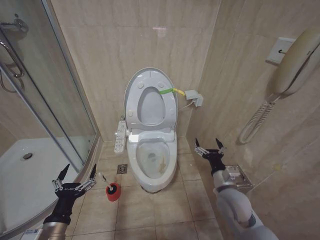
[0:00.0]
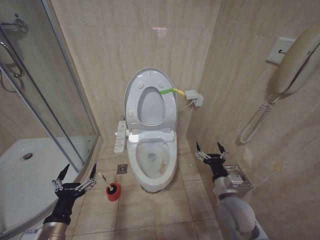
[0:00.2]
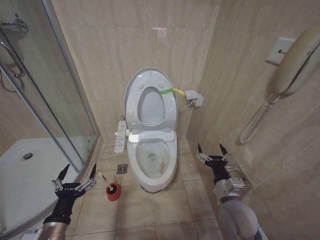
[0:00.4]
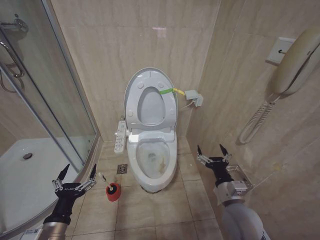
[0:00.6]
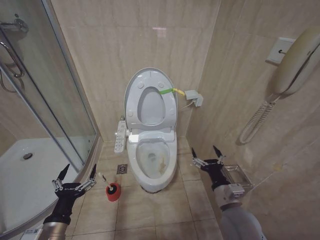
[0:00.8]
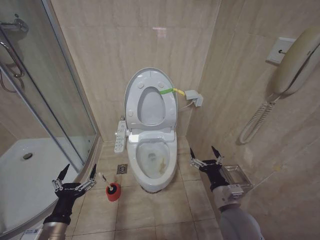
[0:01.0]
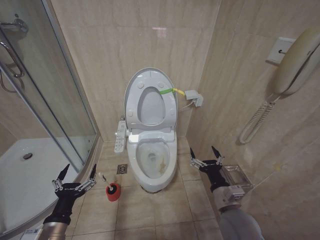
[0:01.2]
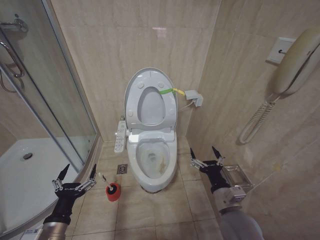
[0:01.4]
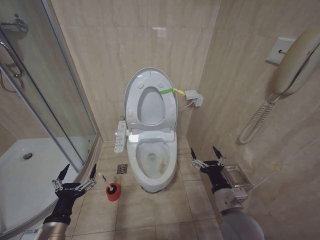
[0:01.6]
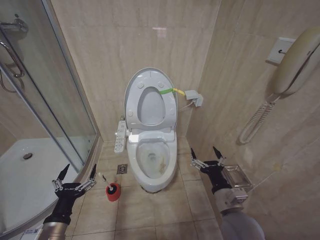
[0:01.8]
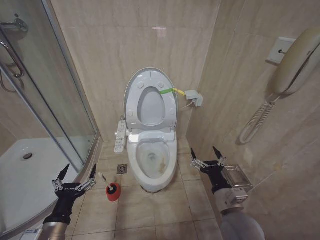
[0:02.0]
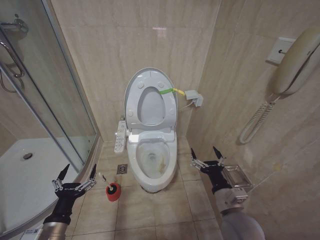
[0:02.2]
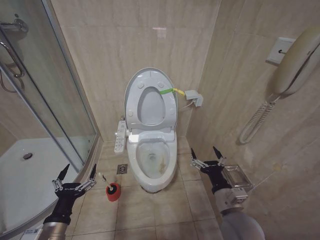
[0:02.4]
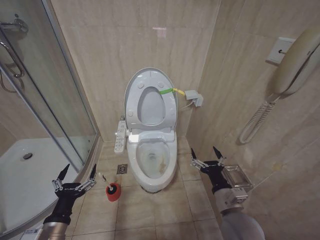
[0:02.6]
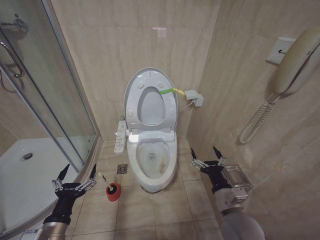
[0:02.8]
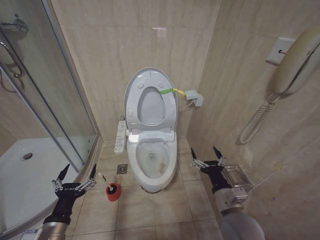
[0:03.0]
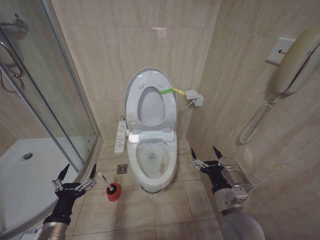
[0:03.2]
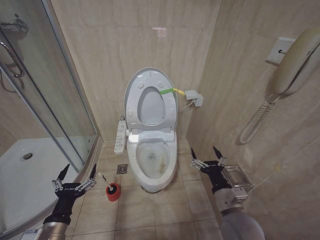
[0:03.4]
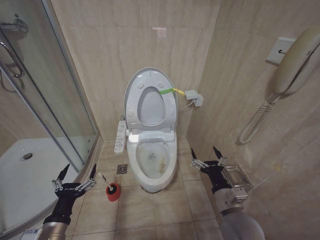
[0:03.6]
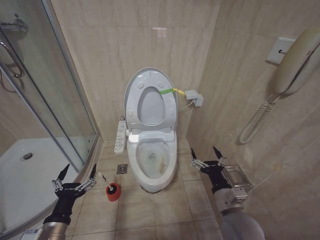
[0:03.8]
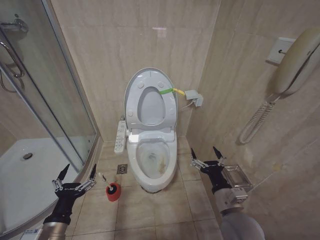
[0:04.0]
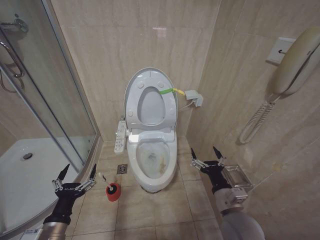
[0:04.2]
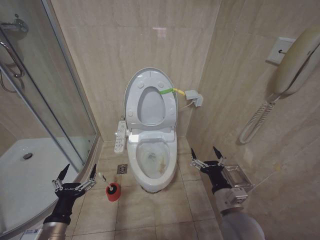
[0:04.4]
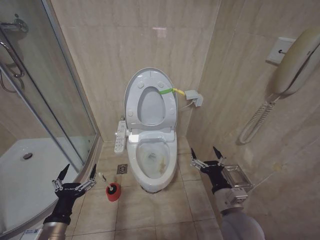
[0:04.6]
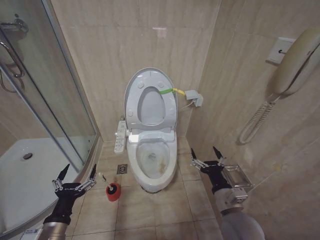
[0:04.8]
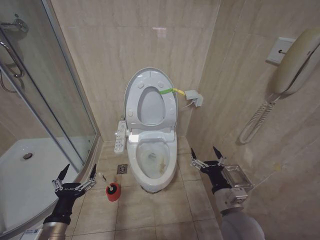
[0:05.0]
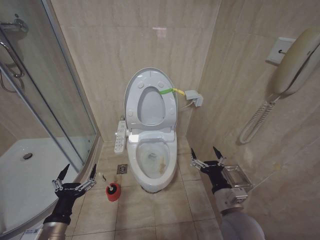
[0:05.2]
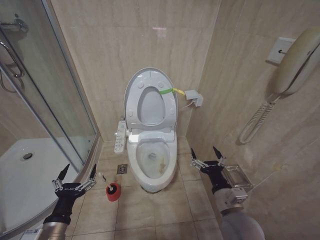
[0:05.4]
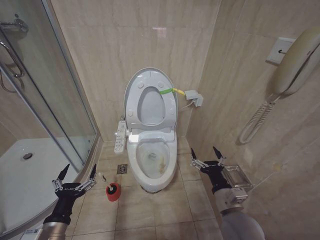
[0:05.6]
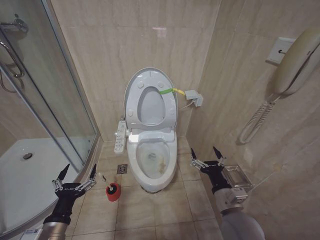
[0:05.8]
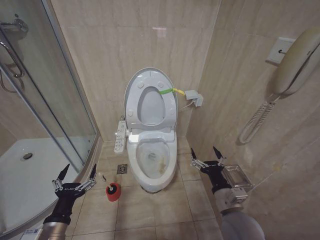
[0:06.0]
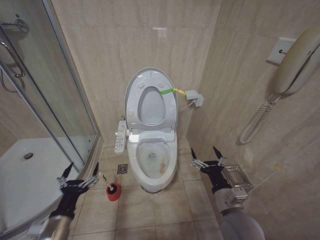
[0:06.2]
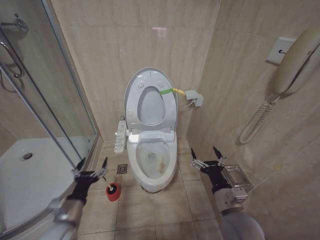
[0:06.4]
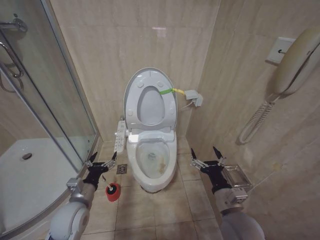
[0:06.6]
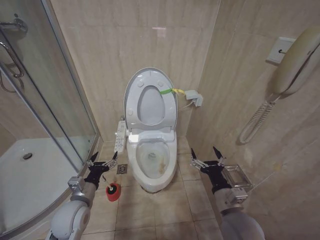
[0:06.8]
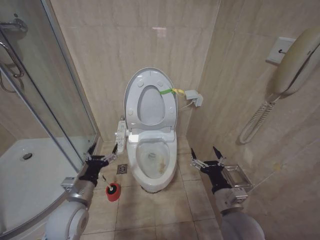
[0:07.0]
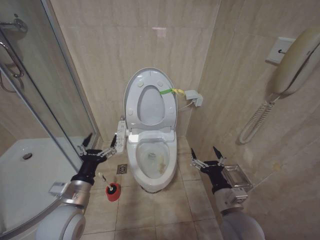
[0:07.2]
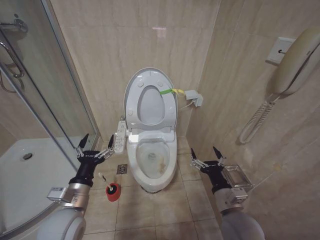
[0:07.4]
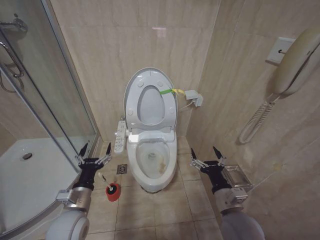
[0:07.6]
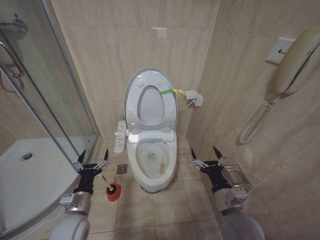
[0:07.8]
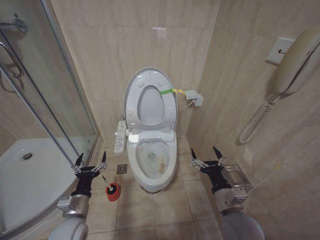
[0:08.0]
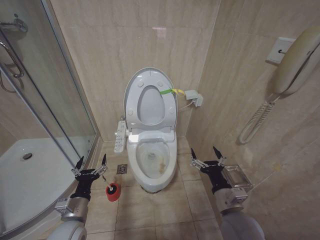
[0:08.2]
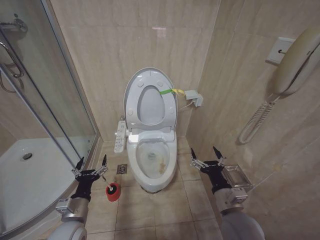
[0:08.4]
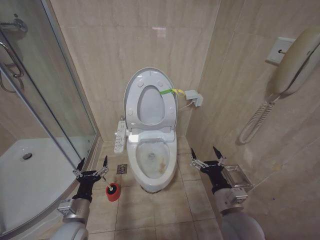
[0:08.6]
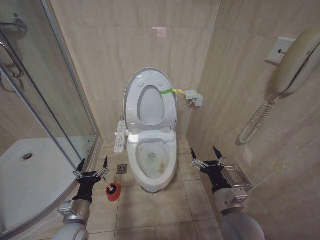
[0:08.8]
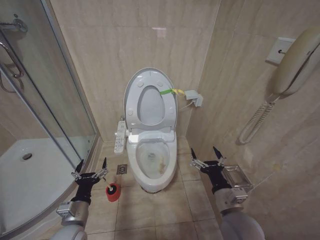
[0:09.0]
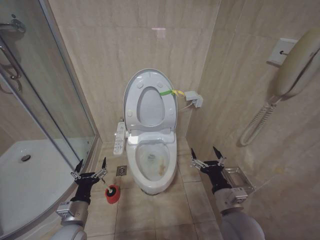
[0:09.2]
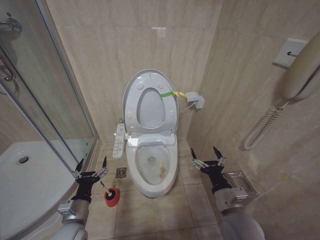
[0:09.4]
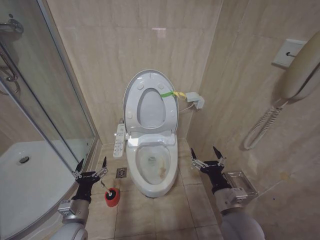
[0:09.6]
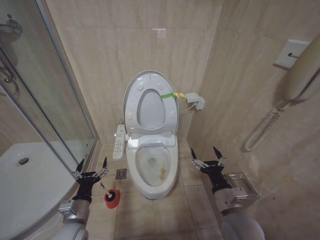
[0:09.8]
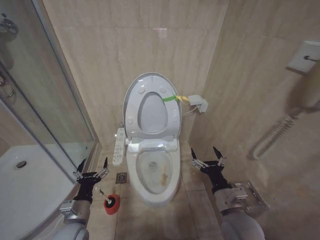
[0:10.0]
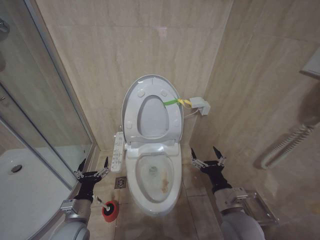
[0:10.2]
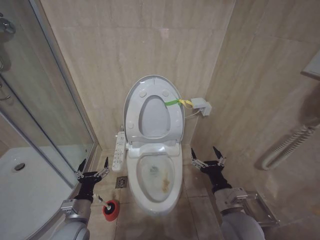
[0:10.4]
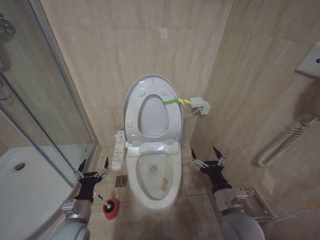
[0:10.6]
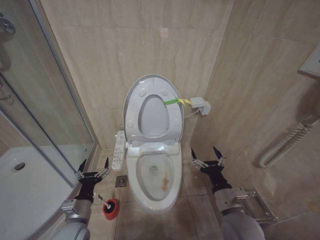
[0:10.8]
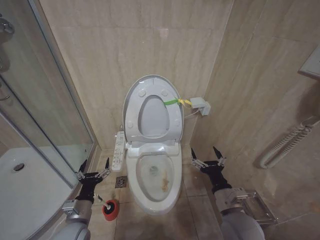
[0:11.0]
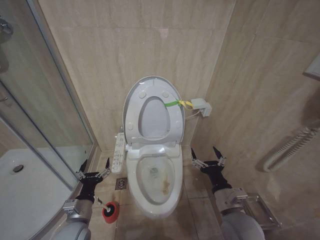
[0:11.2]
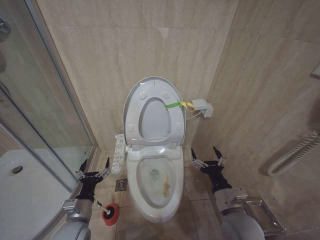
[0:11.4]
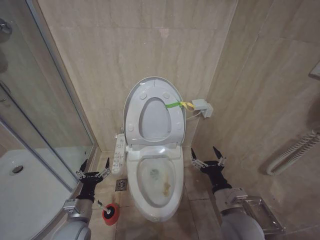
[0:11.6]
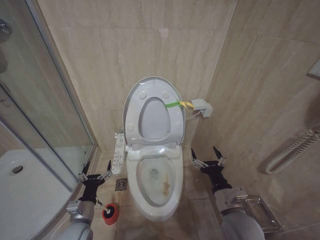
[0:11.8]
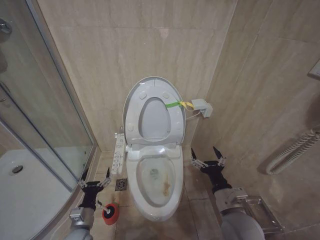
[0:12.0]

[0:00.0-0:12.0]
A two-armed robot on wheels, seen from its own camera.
Task of the whole recording: Open the toilet lid, clean the toilet bowl with a toilet brush, close the toilet lid, and flush.
0:00.0 to 0:01.6: The right gripper heads backward, covering roughly 10 cm.
0:01.6 to 0:06.0: Both grippers stay about where they are.
0:06.0 to 0:07.6: The left gripper is displaced forward by roughly 10 cm.
0:07.6 to 0:09.0: The left gripper travels downward by about 5 cm.
0:09.0 to 0:10.4: Both grippers stay put.
0:10.4 to 0:12.0: The left gripper travels downward by approximately 5 cm.

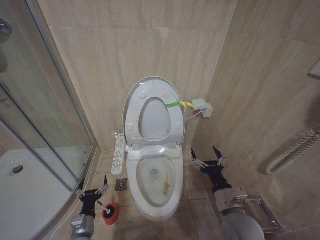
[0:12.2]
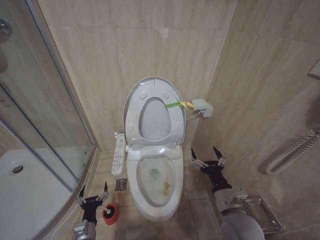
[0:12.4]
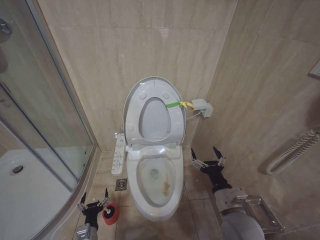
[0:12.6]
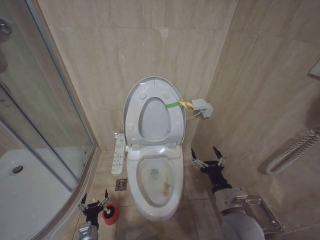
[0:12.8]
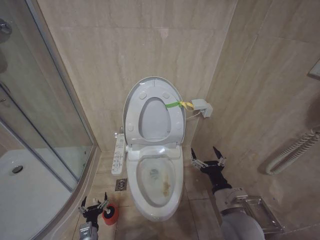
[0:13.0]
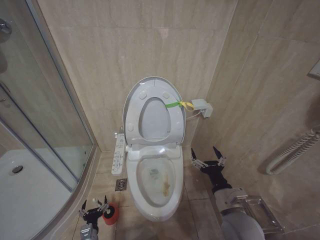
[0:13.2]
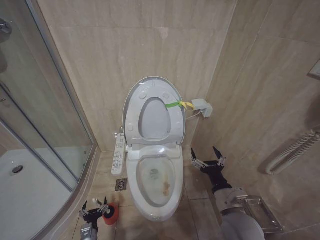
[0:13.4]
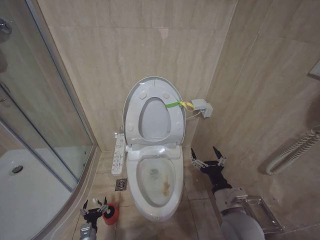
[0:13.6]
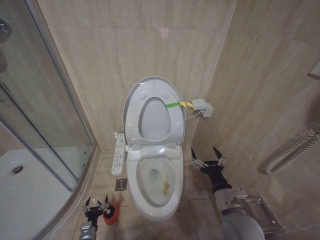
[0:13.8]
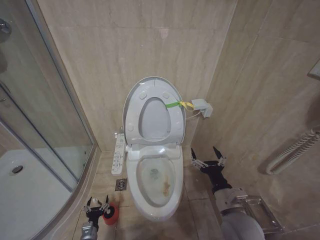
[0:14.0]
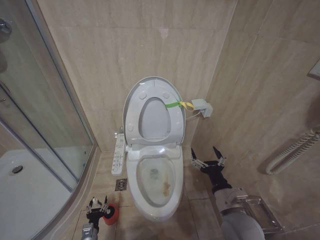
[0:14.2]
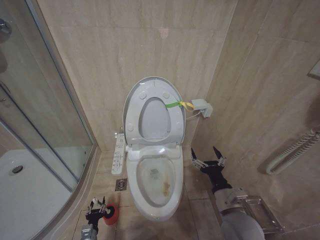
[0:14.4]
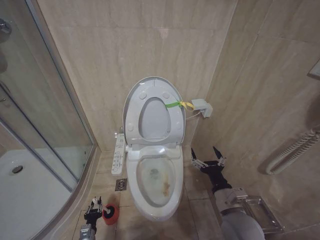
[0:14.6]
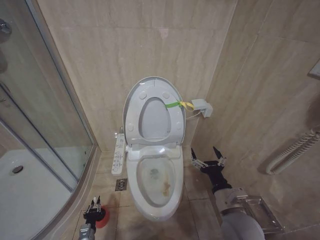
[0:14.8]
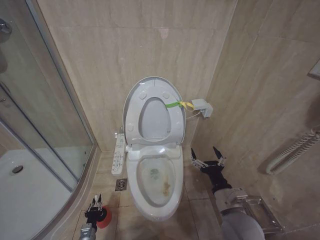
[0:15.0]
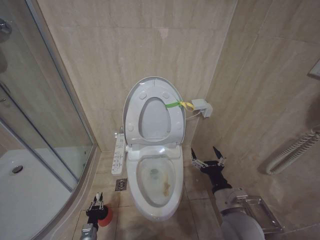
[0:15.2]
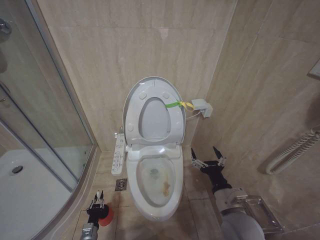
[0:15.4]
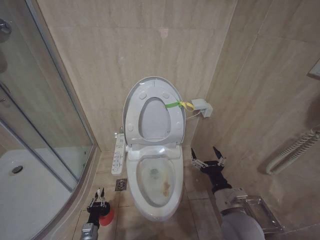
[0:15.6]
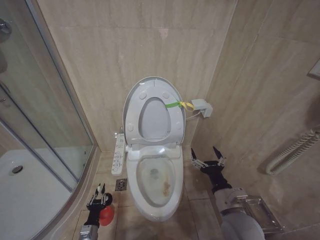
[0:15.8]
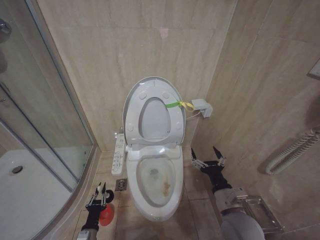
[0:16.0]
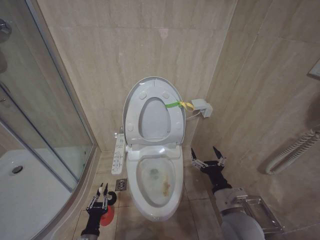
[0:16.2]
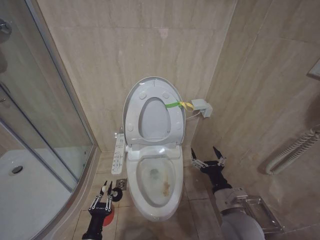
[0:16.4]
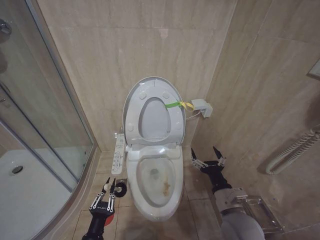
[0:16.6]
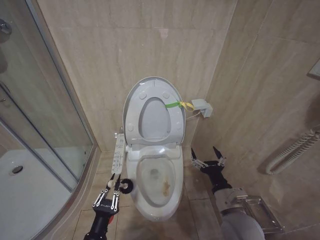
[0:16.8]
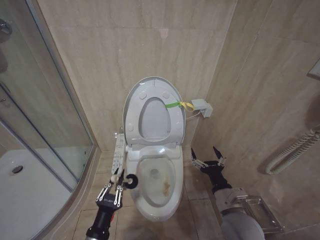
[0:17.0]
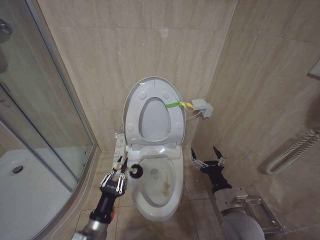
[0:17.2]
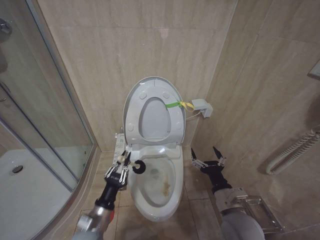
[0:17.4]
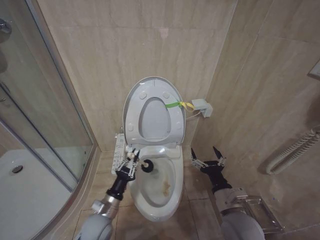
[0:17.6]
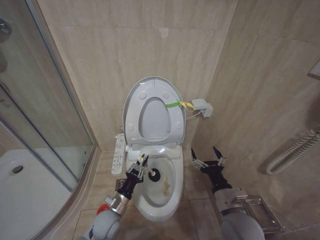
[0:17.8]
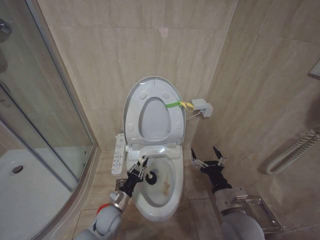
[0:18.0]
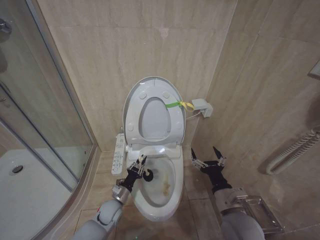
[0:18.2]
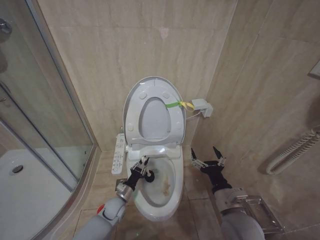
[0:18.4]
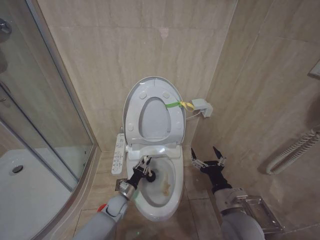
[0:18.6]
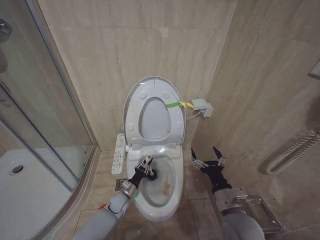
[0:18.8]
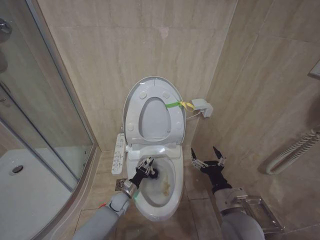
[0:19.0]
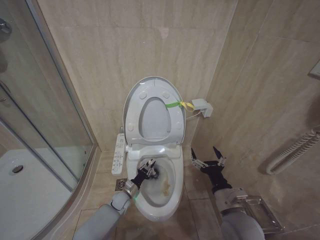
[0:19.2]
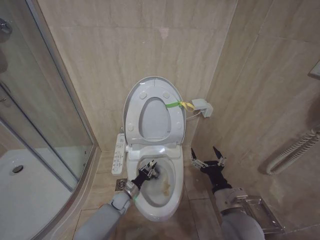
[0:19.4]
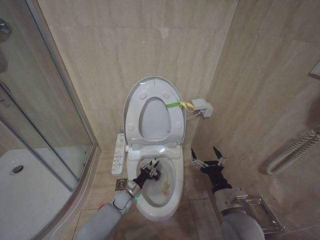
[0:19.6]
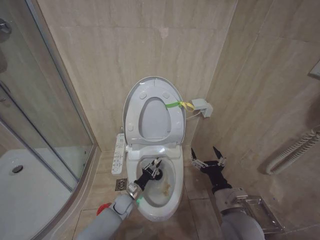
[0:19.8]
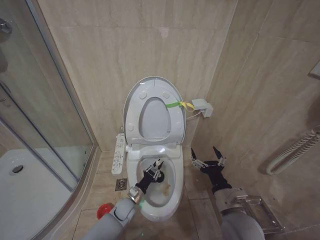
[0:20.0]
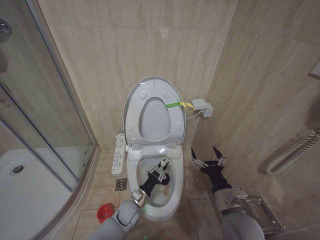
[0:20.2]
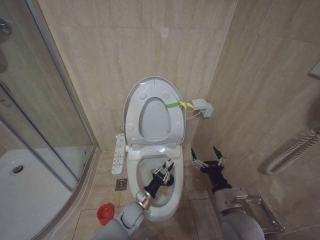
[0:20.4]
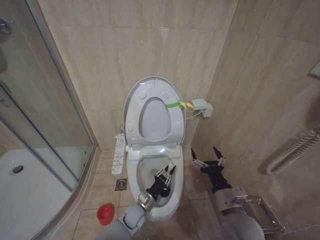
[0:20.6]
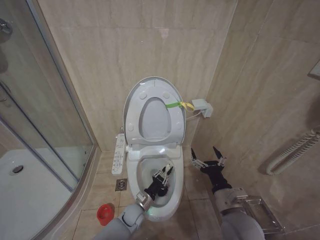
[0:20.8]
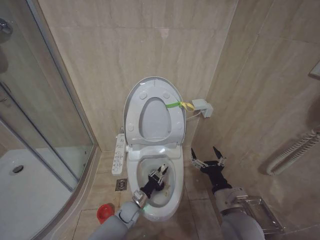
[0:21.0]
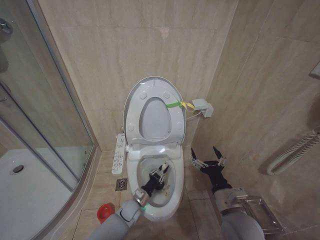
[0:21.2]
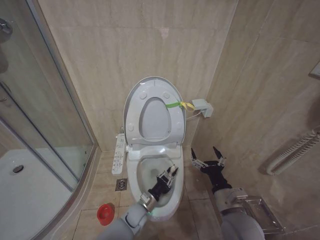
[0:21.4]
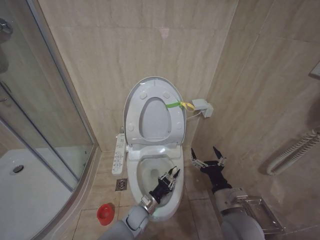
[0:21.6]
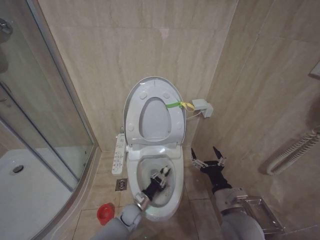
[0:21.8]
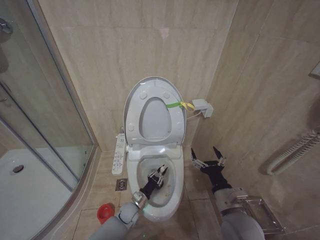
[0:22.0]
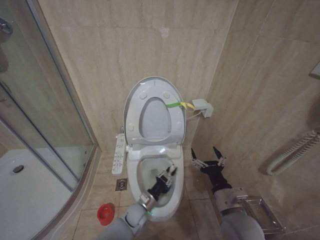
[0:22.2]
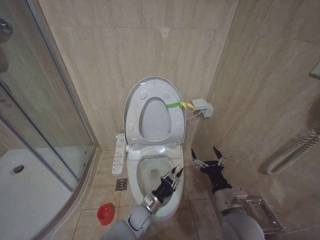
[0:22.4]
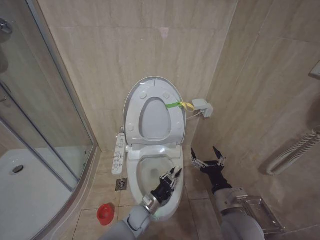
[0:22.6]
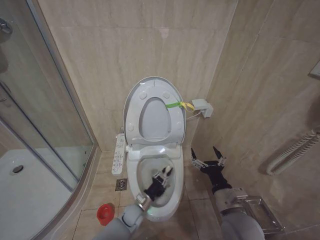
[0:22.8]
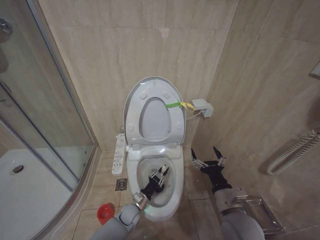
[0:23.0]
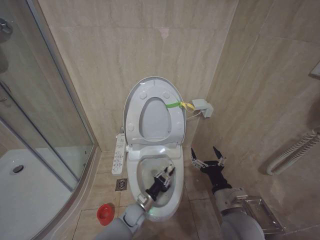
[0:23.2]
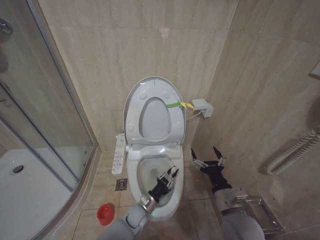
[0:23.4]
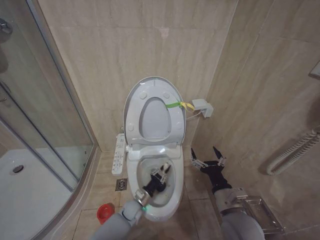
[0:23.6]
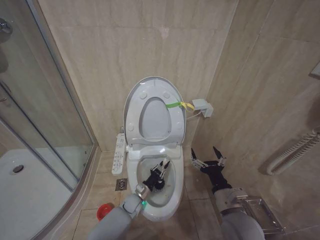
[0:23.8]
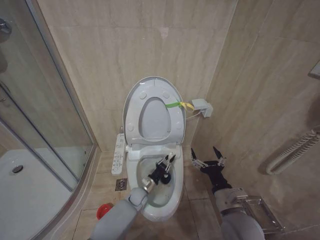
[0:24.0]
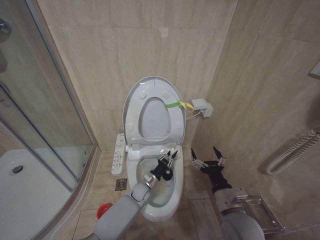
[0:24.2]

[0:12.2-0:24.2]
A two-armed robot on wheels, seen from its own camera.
Task of the whole recording: Open the toilet lid, clean the toilet bowl with a toilet brush, close the toilet lid, and flush.
0:12.2 to 0:13.8: The left gripper is displaced downward by some 15 cm.
0:13.8 to 0:15.2: The left gripper closes its fingers.
0:15.2 to 0:16.6: The left gripper shifts roughly 20 cm upward, backward and to the right.
0:16.6 to 0:18.2: The left gripper is displaced forward by roughly 20 cm.
0:18.2 to 0:19.8: The left gripper heads forward and downward, covering about 10 cm.
0:21.2 to 0:22.6: The left gripper swings left and right, approximately 5 cm each way, with 2 reversals.
0:22.6 to 0:24.2: The left gripper moves forward, some 10 cm.
